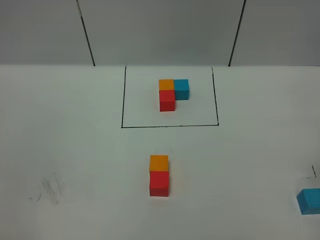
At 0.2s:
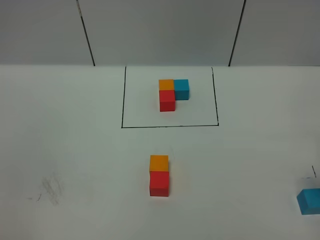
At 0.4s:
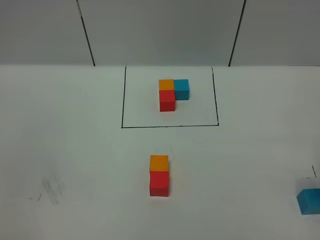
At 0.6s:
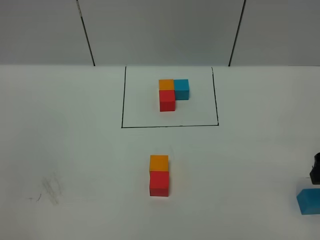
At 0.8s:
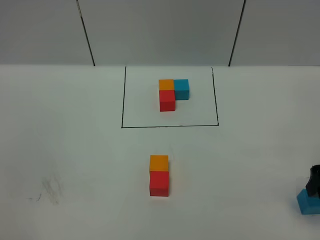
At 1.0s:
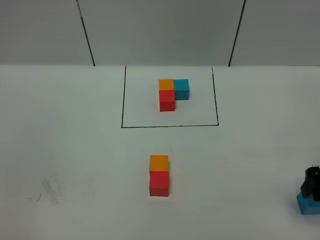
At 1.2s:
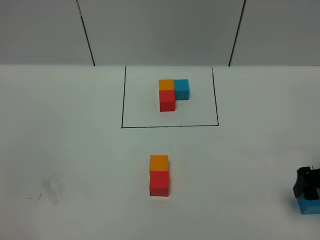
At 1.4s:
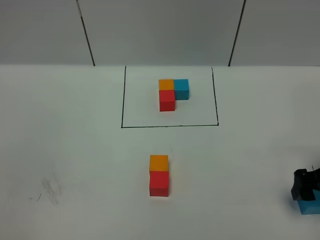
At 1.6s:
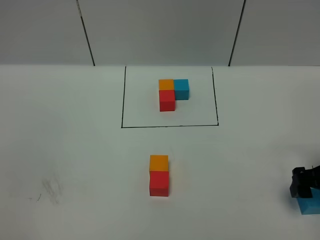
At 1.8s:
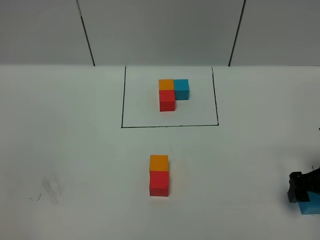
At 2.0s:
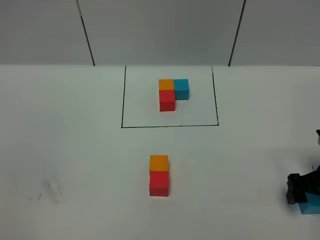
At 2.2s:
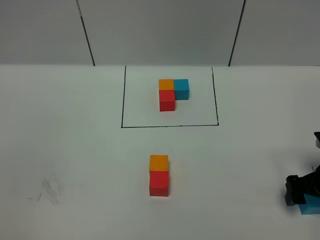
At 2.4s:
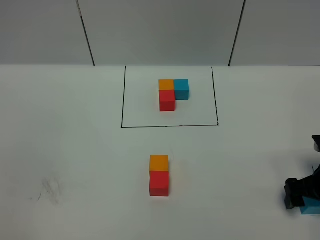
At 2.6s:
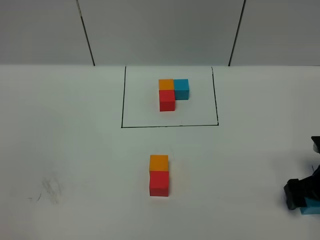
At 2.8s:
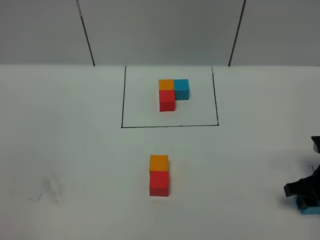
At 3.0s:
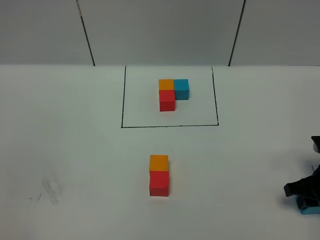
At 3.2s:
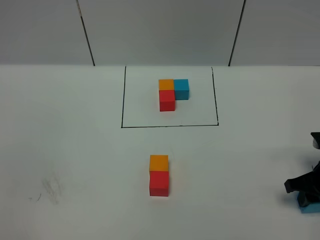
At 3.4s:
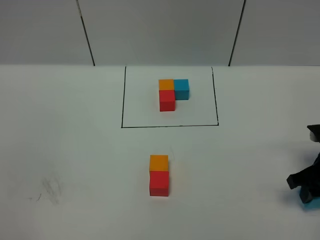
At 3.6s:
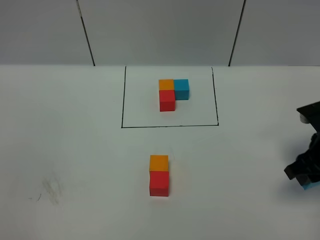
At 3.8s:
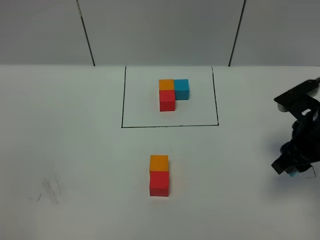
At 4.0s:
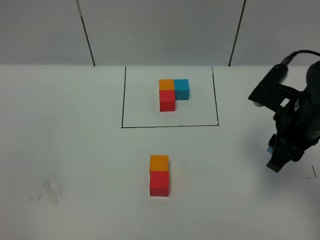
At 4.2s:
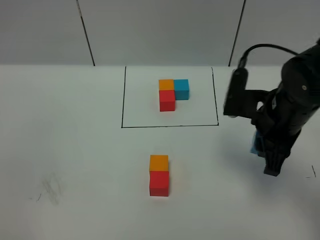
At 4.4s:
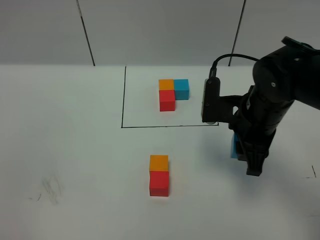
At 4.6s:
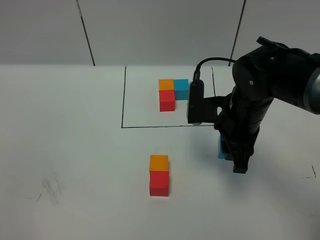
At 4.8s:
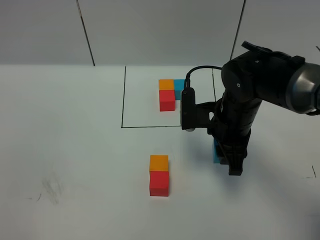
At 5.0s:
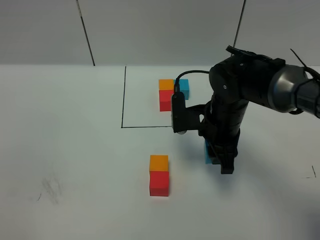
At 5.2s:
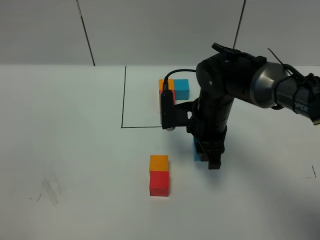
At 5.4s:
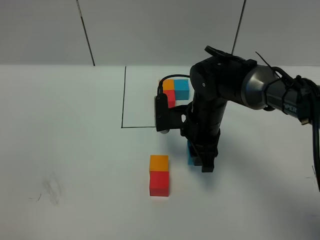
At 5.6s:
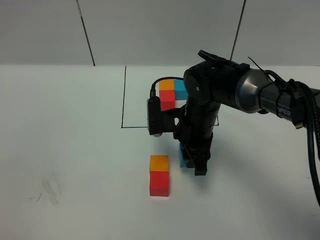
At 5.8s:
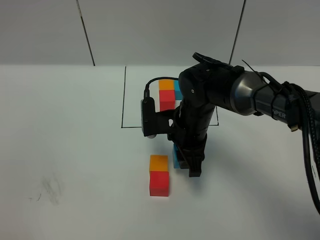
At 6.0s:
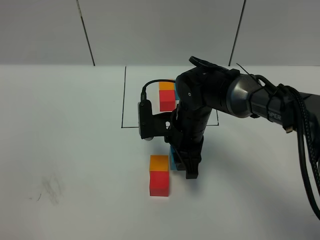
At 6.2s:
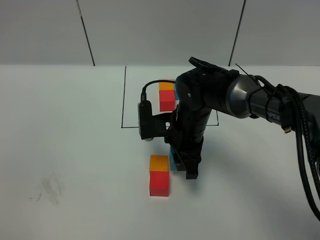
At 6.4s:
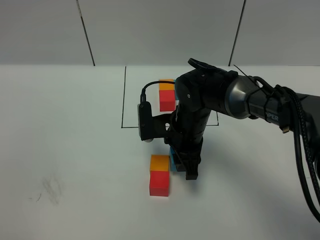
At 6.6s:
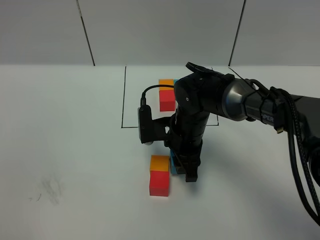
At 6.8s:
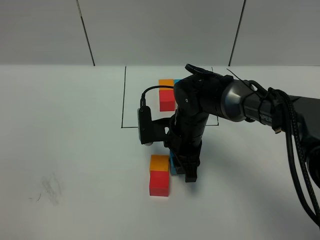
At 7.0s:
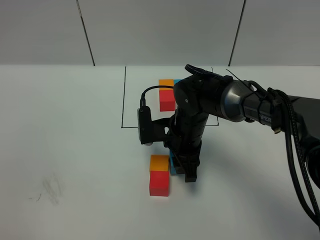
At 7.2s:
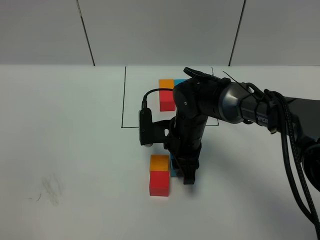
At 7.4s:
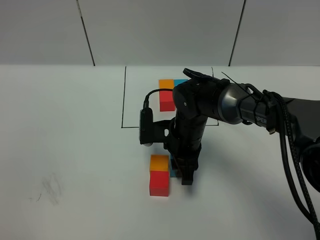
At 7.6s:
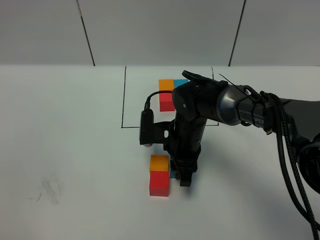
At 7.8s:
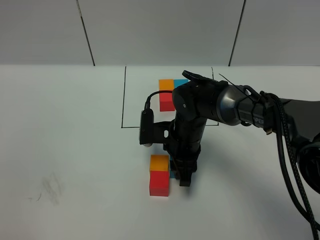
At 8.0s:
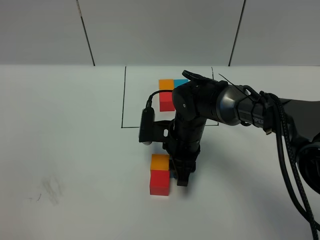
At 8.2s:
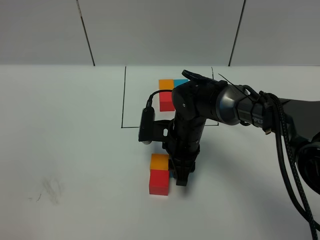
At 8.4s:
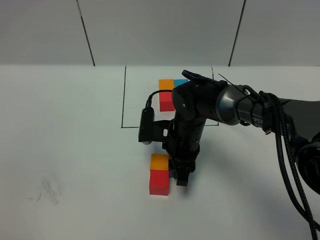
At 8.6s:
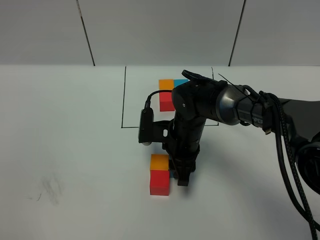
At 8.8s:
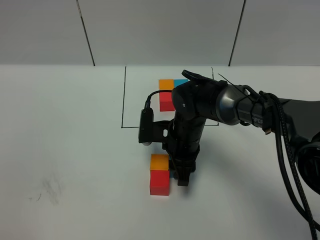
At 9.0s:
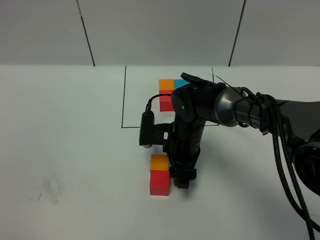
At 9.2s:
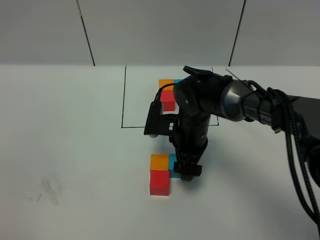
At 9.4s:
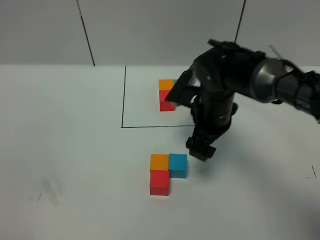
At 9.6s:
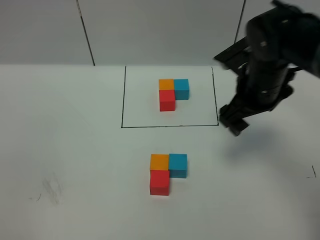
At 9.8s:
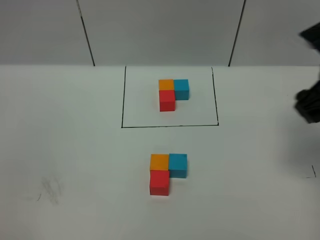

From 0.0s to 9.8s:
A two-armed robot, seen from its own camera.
Task of the whole recording: According to the building block template in front, assemble the scattered blocks together.
Step, from 0.0s to 9.4s: Put the blue cube on the right of the orange cube.
From 0.0s to 1.4s: The right gripper heads downward, covering roughly 10 cm.
From 1.4s to 2.8s: The right gripper heads downward, covering roughly 5 cm, and closes its fingers.
From 2.8s to 4.2s: The right gripper moves to the left and upward, some 20 cm.
From 4.2s to 5.6s: The right gripper travels to the left, downward and forward by approximately 15 cm.
From 5.6s to 8.4s: The grippers stay close to where they were, moving slightly.
From 8.4s to 9.8s: The right gripper goes some 30 cm to the right and upward, and opens its fingers.

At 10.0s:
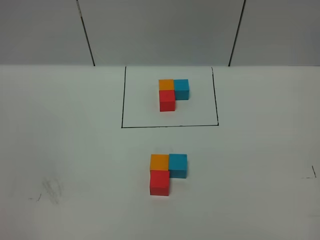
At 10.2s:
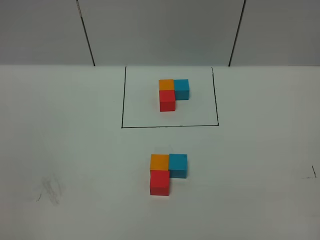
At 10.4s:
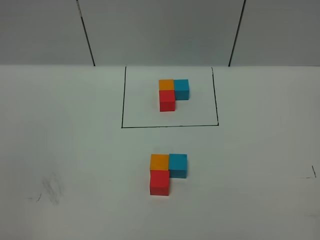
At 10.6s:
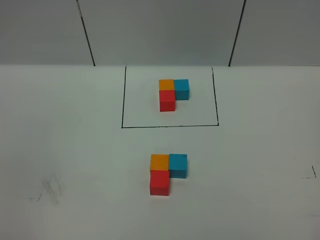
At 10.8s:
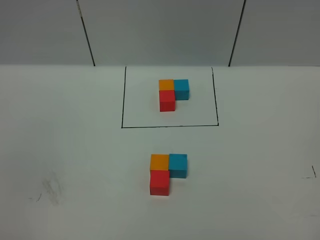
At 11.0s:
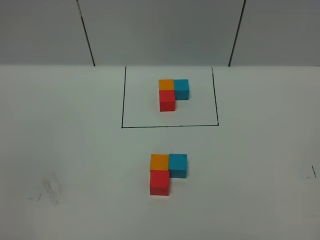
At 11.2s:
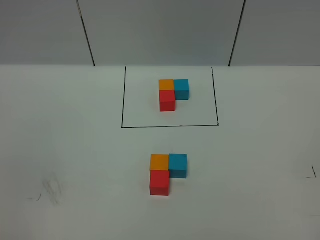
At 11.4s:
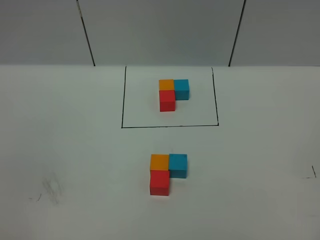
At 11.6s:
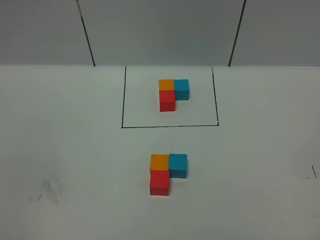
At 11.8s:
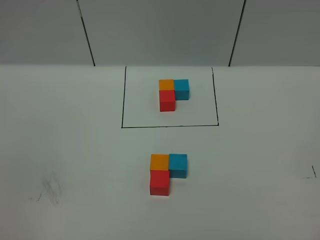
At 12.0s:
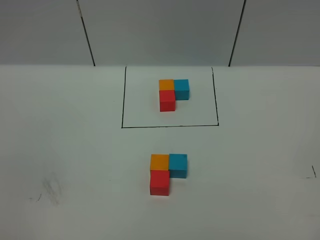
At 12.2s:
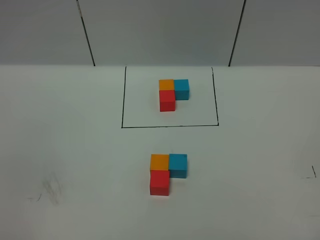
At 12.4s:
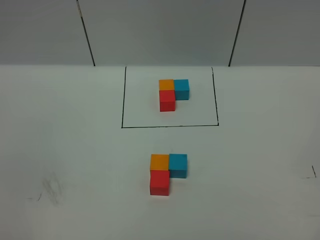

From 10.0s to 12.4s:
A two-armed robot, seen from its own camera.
Task of the whole recording: According to the building block template in front, assemble the scattered blocks together.
From 11.2s to 12.4s: Both grippers stay about where they are.
